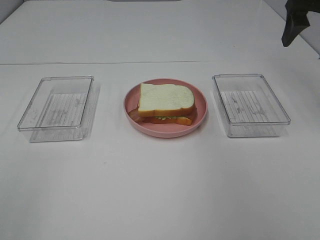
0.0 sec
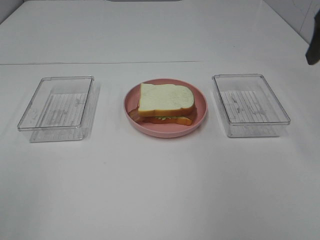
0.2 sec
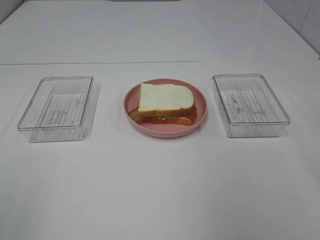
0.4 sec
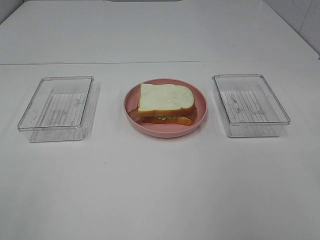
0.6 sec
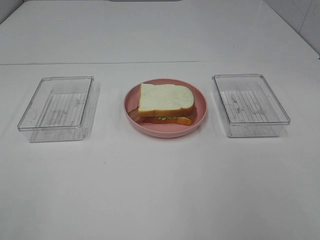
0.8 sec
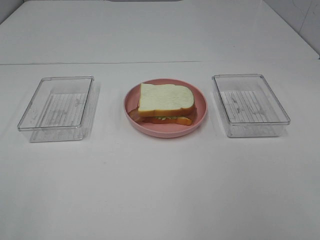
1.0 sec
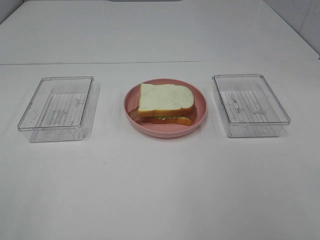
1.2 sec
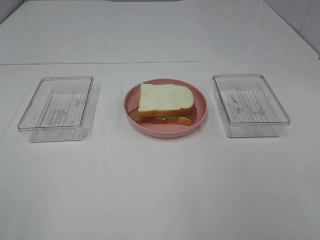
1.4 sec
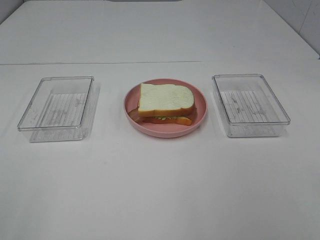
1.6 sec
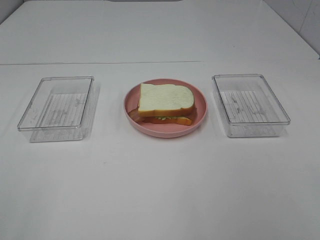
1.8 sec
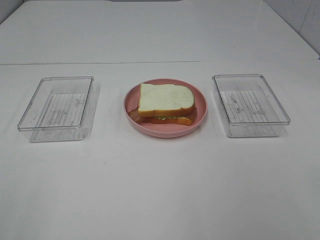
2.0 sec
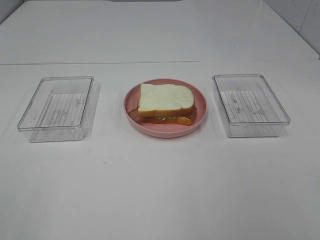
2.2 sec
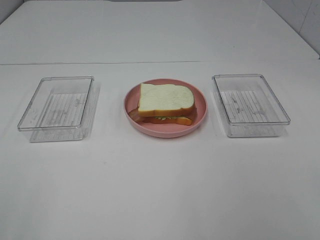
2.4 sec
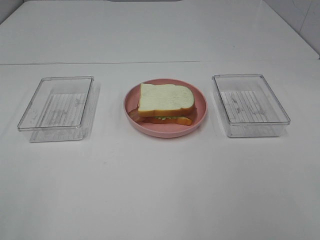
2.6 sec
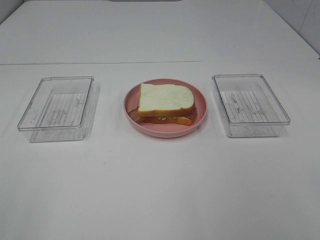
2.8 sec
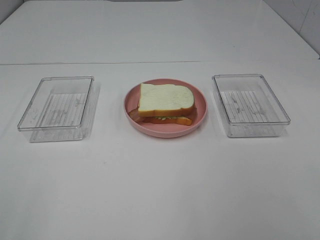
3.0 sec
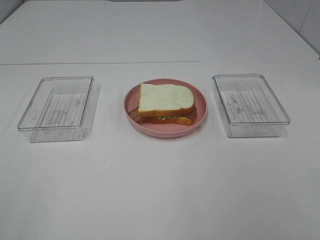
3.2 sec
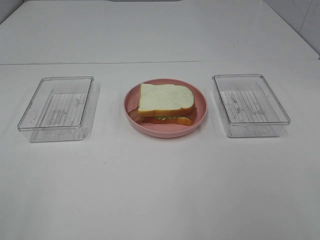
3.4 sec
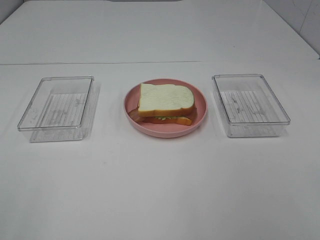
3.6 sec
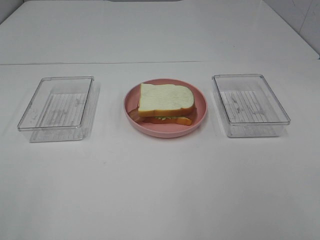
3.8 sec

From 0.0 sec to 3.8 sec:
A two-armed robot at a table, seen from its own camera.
Task of the whole recording: Make sandwiches.
From 0.0 sec to 1.2 sec: The right gripper heads backward, covering approximately 35 cm.
From 1.2 sec to 3.8 sec: The two grippers keep their place.

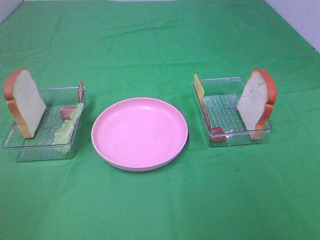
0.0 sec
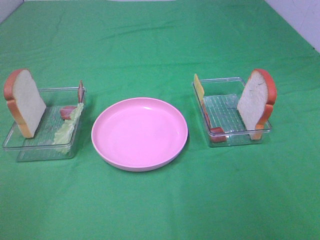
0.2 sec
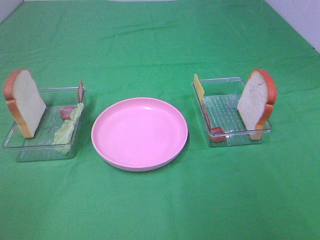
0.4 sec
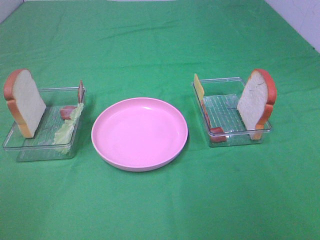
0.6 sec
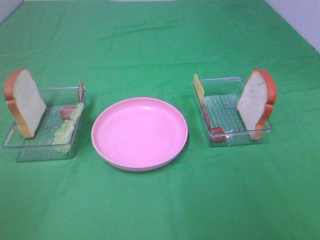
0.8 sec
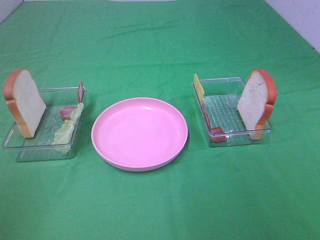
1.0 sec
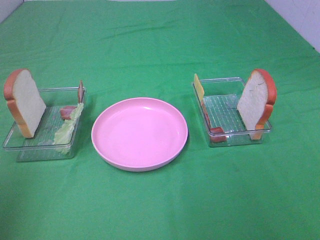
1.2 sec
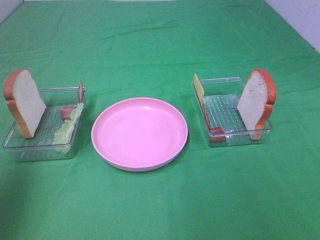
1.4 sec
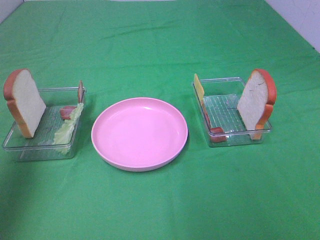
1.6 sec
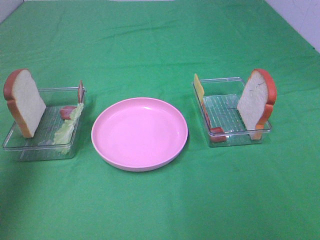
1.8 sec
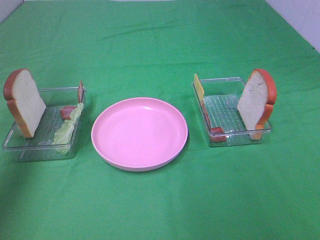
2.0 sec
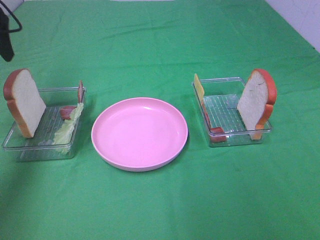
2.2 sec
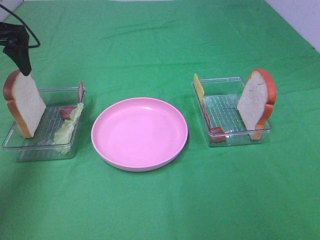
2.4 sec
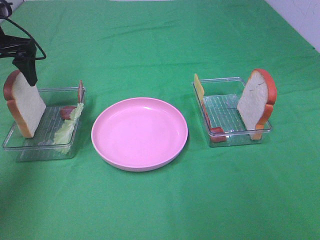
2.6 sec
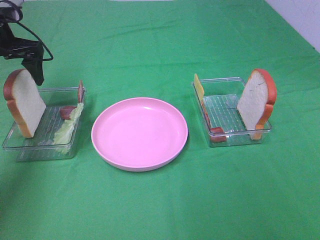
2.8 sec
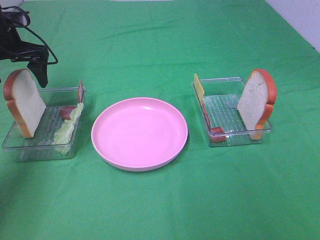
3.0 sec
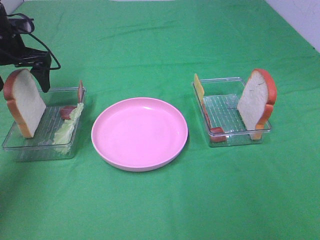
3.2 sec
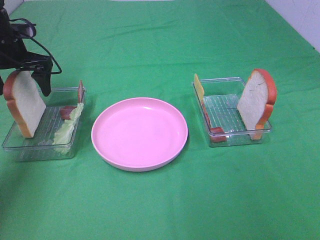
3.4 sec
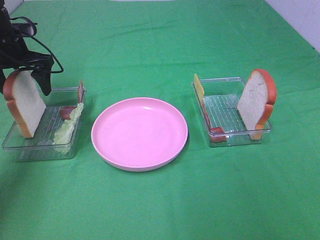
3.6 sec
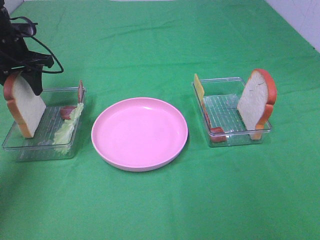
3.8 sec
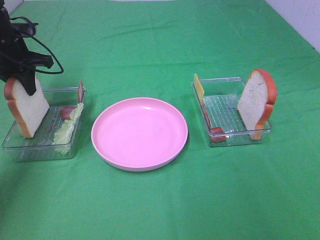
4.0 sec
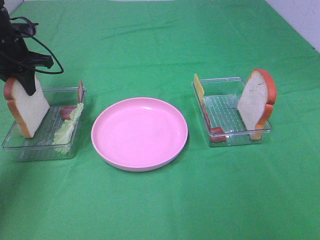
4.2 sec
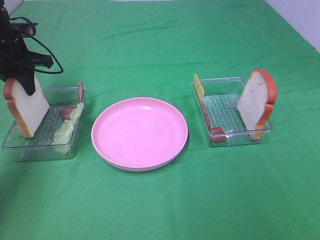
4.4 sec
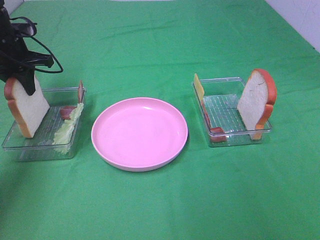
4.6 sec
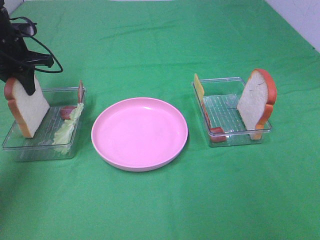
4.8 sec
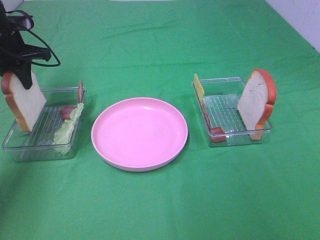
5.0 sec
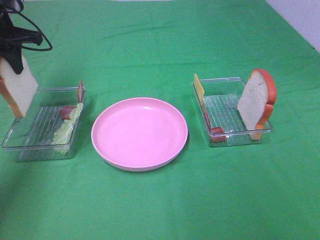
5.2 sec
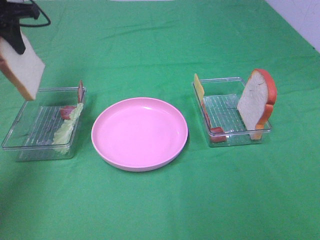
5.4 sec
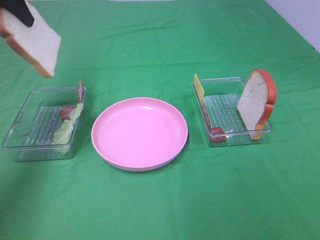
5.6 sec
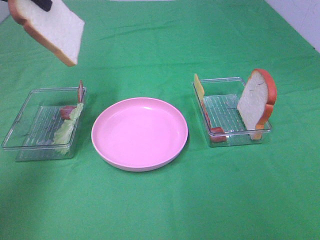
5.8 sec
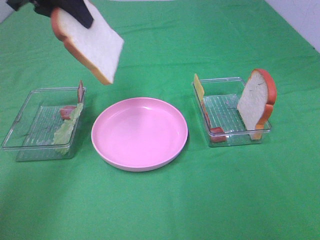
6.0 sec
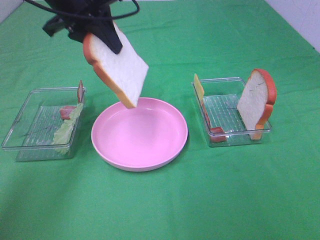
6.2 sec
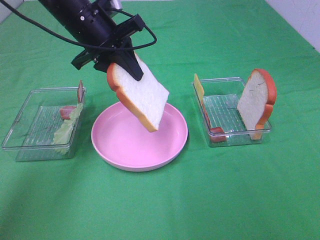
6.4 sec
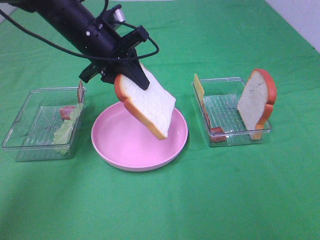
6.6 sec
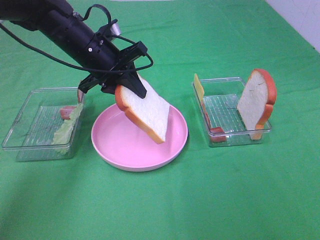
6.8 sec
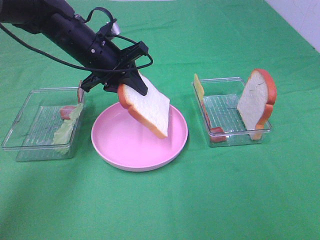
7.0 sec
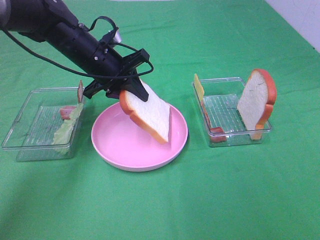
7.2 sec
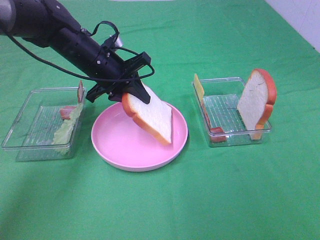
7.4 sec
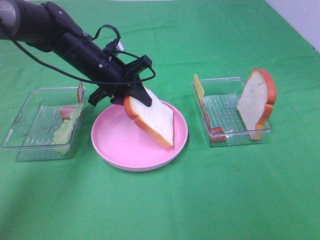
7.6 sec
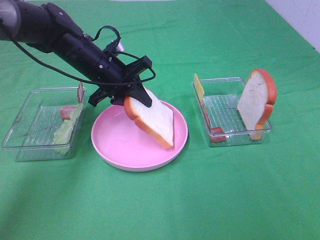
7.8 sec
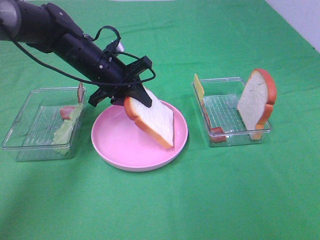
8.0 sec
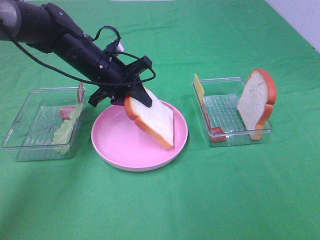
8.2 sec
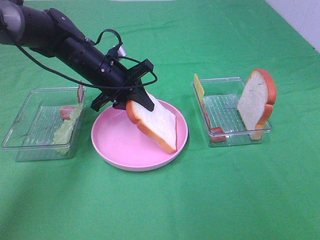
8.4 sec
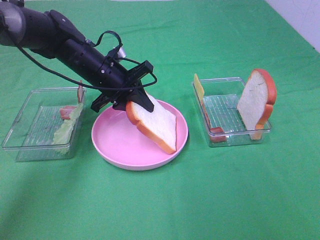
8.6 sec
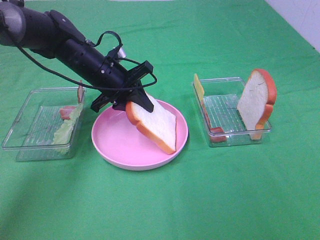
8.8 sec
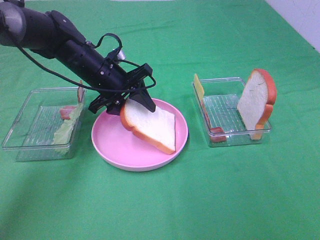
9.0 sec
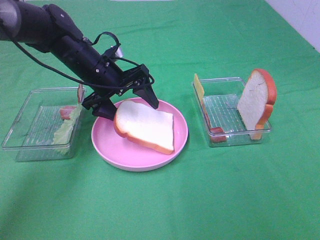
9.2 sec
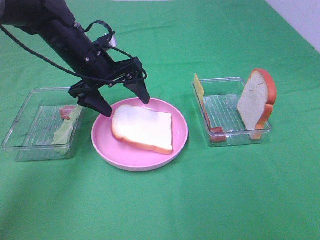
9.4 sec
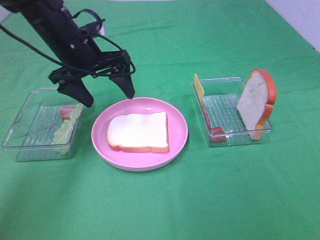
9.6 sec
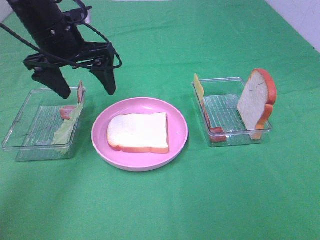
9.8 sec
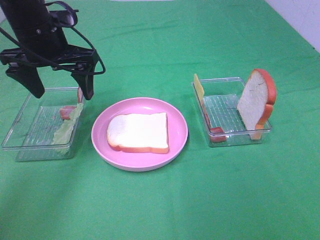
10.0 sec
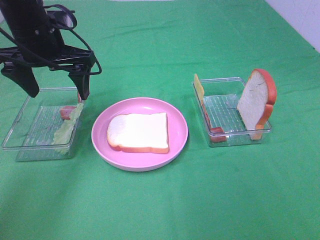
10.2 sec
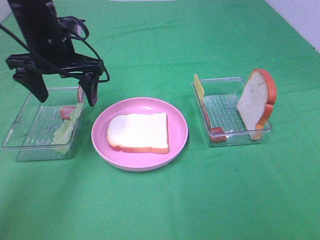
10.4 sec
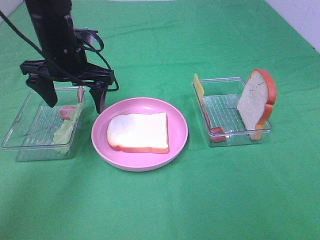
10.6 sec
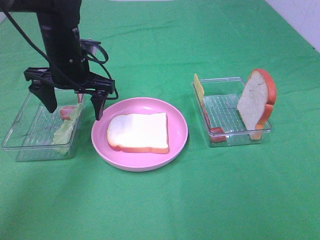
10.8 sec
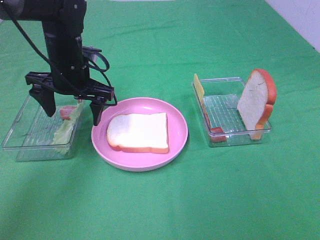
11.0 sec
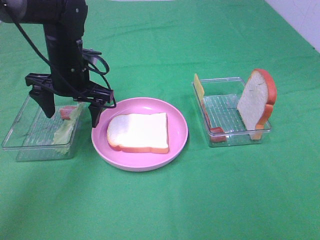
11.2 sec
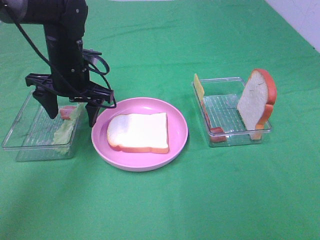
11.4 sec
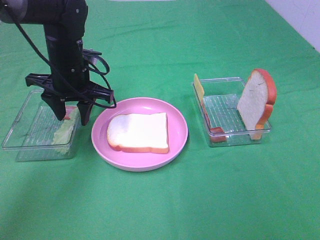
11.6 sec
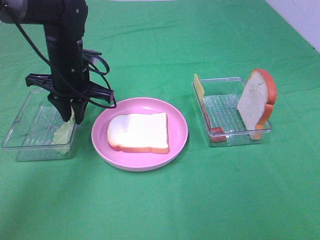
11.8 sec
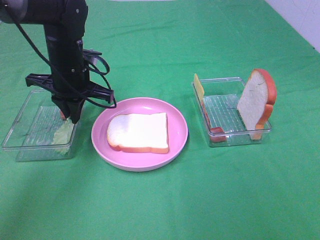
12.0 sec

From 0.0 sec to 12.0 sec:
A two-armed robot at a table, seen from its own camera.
Task of the whole recording: Make sandwiches.
Step, from 0.0 sec to 4.4 sec: Left hand:grab the bread slice.
Step, from 4.6 sec to 9.4 sec: Left hand:place the bread slice on the plate.
From 0.0 sec to 1.6 sec: The left gripper moves forward, roughly 25 cm.
From 1.6 sec to 3.0 sec: The left gripper shifts about 25 cm forward and downward.
From 3.0 sec to 4.4 sec: The left gripper closes its fingers.
From 4.4 sec to 6.0 sec: The left gripper travels upward, to the right and backward by about 20 cm.
From 6.0 sec to 7.6 sec: The left gripper travels downward by about 20 cm.
From 7.6 sec to 9.0 sec: The left gripper opens.
From 9.0 sec to 10.4 sec: The left gripper moves upward and to the left, approximately 10 cm.
From 10.4 sec to 12.0 sec: The left gripper moves downward, some 5 cm, and closes up.

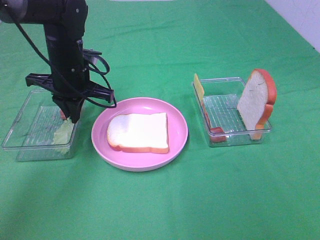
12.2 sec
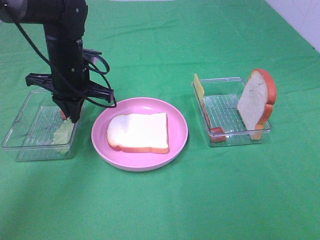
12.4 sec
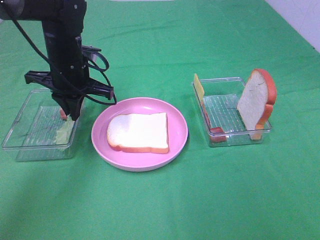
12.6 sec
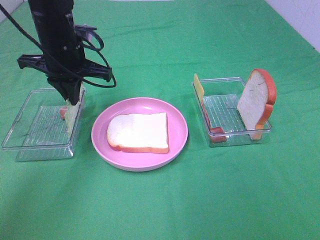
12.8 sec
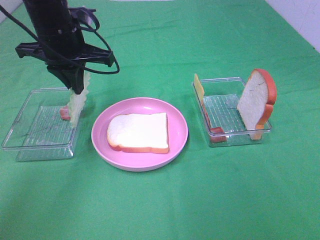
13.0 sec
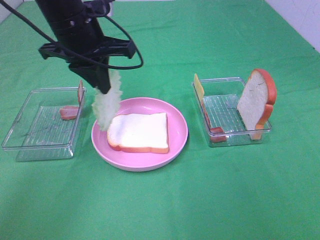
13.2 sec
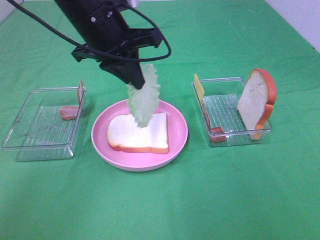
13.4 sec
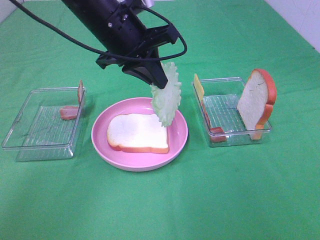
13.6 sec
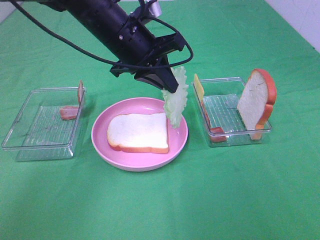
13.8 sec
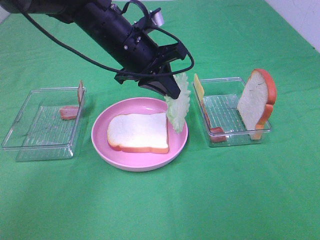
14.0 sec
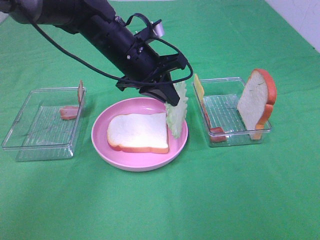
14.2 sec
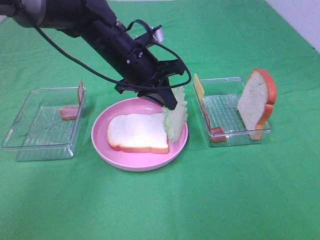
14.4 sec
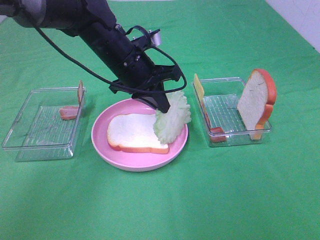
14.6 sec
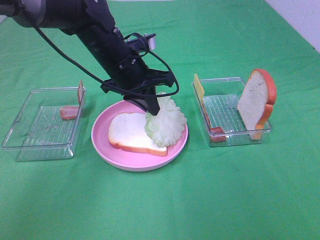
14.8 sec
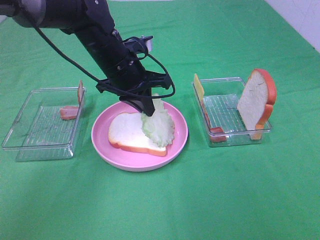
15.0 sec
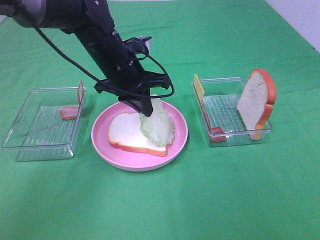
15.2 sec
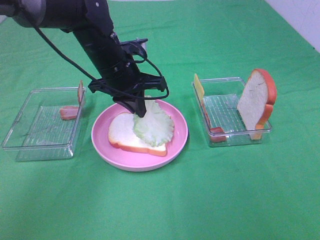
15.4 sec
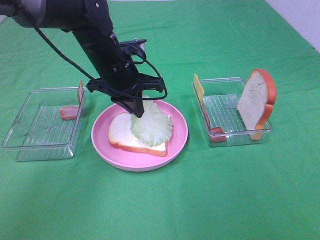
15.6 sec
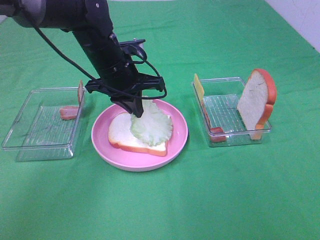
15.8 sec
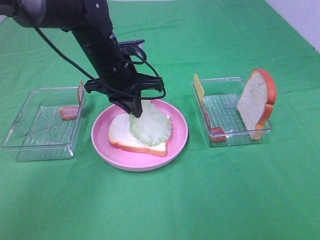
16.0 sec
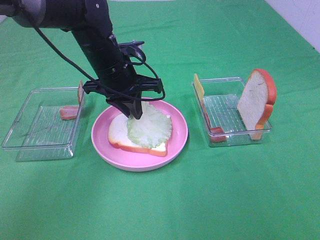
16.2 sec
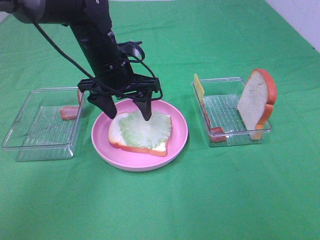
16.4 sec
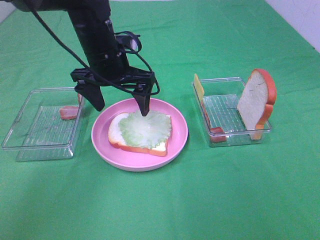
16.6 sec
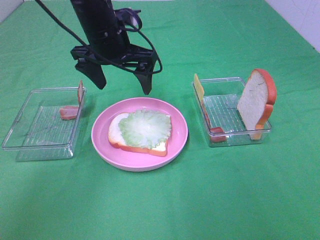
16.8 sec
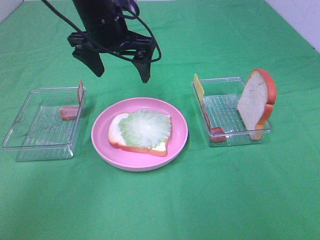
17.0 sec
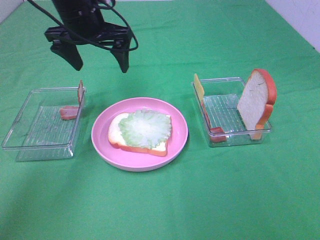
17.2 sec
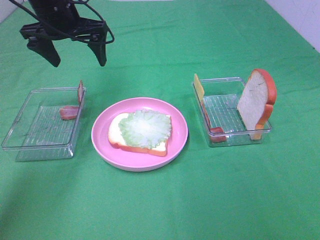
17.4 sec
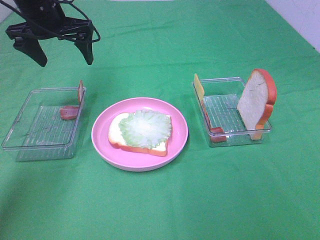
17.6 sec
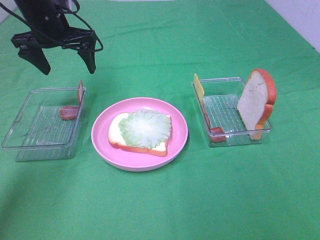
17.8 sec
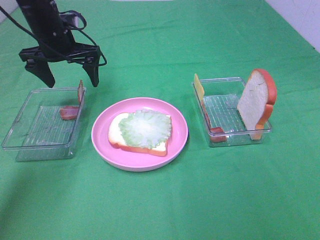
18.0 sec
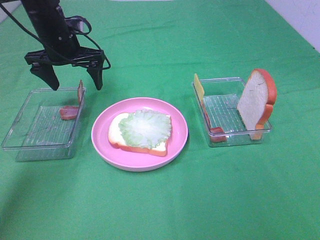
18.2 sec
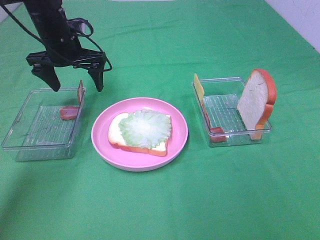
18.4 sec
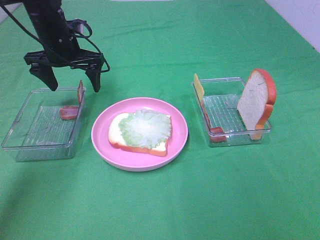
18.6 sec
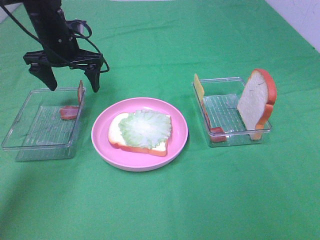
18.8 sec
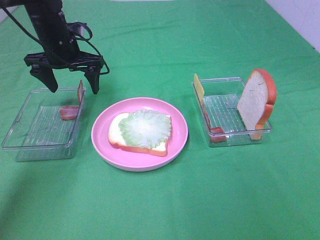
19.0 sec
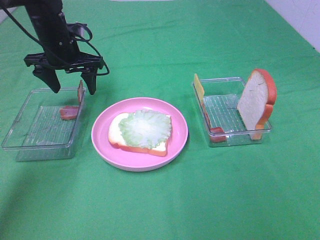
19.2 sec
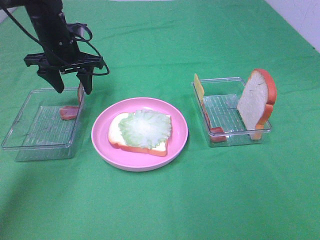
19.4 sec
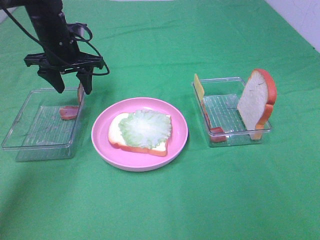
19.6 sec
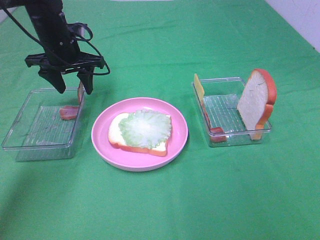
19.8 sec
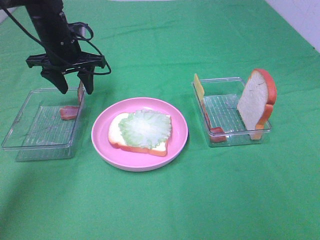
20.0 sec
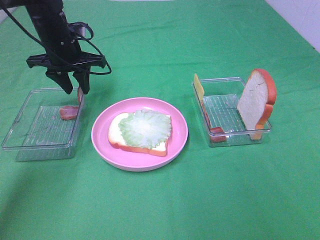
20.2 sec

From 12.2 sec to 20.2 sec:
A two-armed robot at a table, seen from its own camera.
Task of the whole recording: Make sandwiches.
Step, from 12.4 sec to 16.4 sec: Left hand:place the lettuce slice on the bread slice.
From 12.2 sec to 13.8 sec: The left gripper travels to the right and upward by approximately 10 cm.
From 13.8 sec to 15.4 sec: The left gripper travels downward by some 5 cm.
From 15.4 sec to 17.0 sec: The left gripper goes approximately 10 cm upward, and opens up.
From 17.0 sec to 18.6 sec: The left gripper goes some 15 cm to the left, downward and forward.
From 18.6 sec to 20.2 sec: The left gripper closes up.
